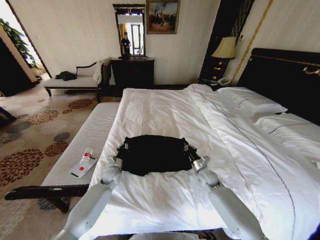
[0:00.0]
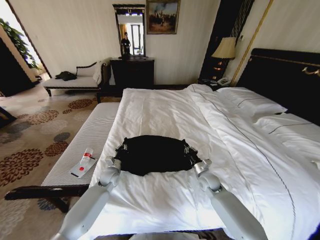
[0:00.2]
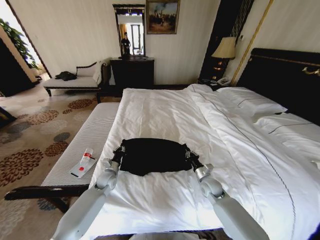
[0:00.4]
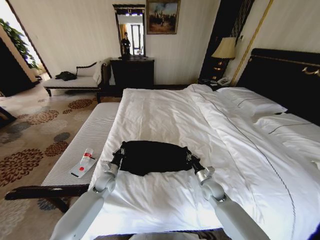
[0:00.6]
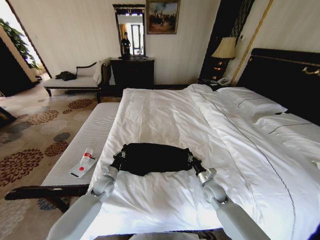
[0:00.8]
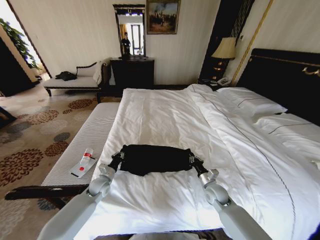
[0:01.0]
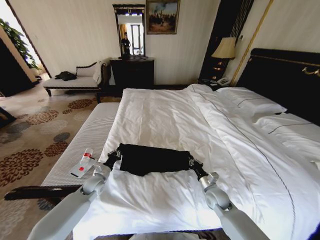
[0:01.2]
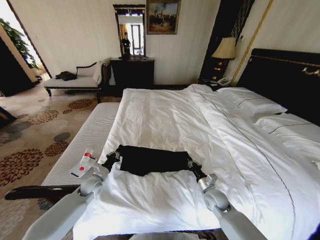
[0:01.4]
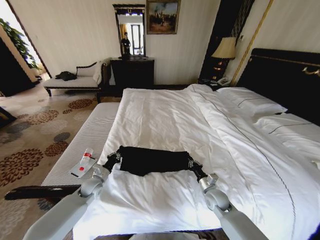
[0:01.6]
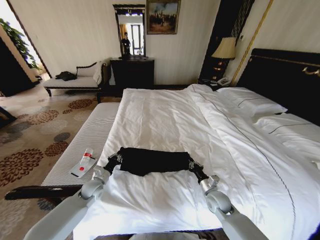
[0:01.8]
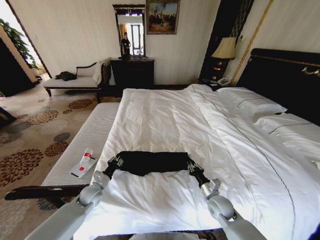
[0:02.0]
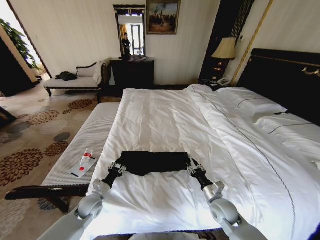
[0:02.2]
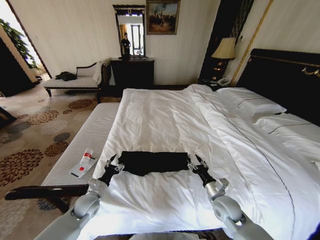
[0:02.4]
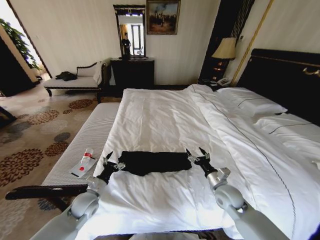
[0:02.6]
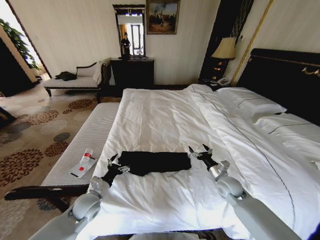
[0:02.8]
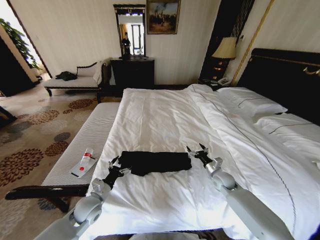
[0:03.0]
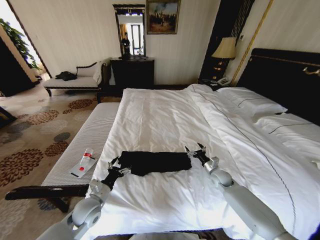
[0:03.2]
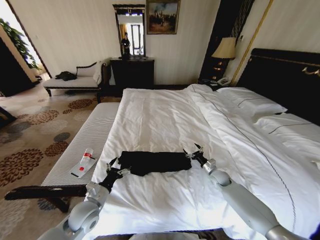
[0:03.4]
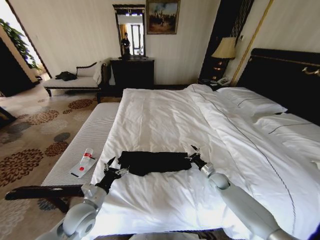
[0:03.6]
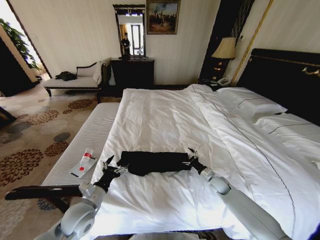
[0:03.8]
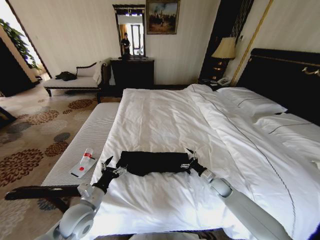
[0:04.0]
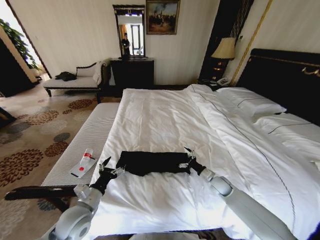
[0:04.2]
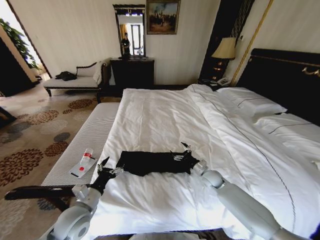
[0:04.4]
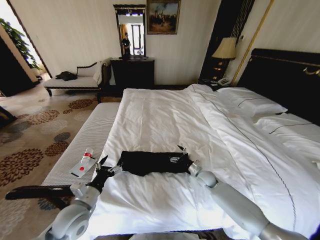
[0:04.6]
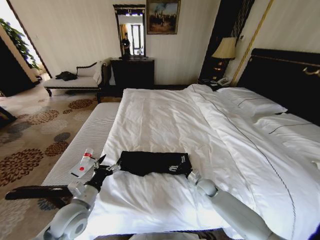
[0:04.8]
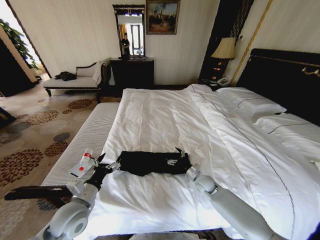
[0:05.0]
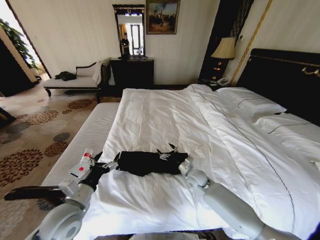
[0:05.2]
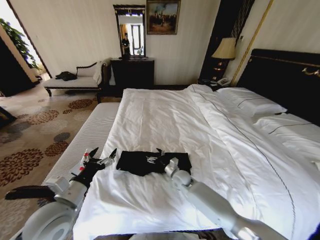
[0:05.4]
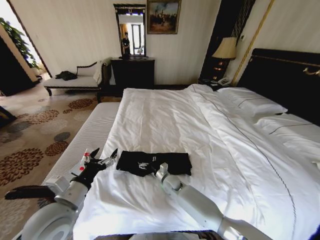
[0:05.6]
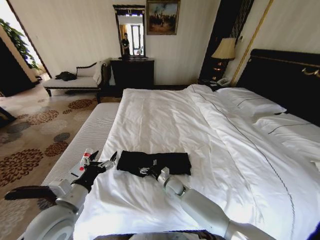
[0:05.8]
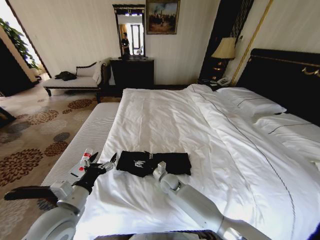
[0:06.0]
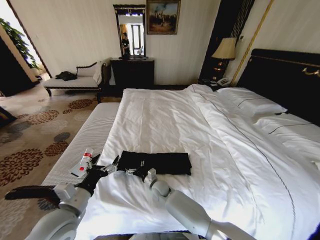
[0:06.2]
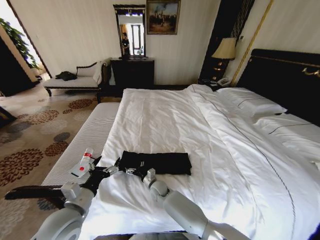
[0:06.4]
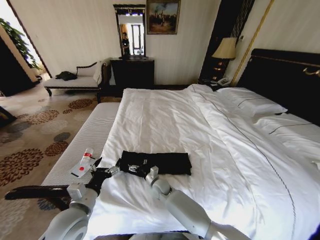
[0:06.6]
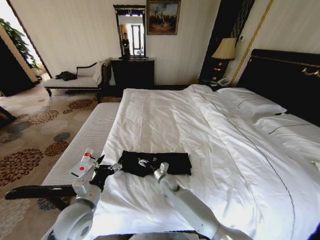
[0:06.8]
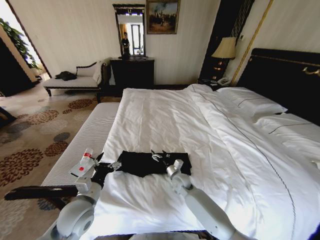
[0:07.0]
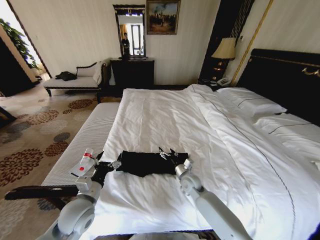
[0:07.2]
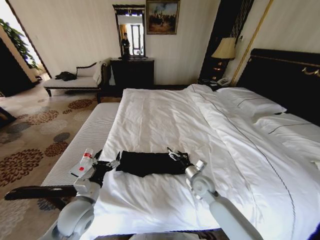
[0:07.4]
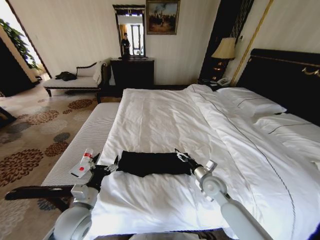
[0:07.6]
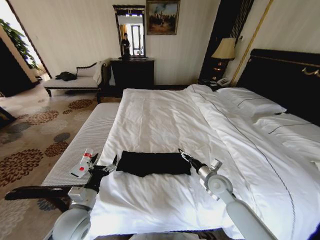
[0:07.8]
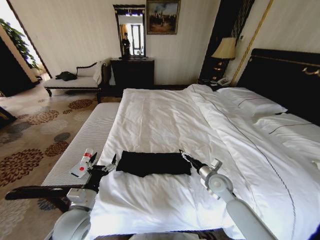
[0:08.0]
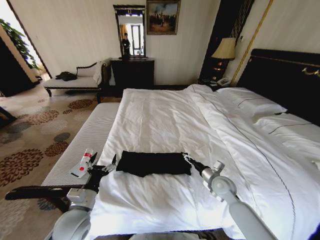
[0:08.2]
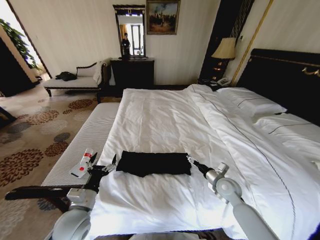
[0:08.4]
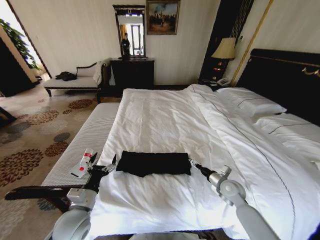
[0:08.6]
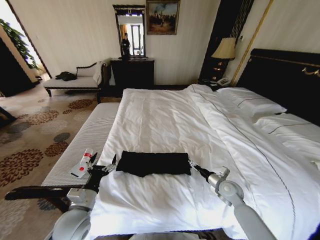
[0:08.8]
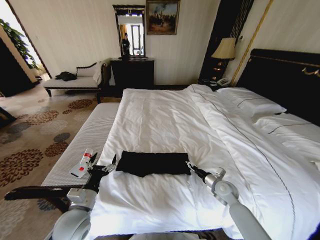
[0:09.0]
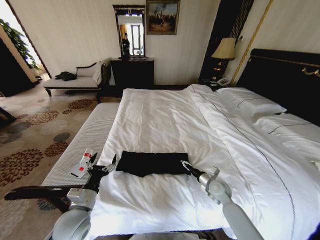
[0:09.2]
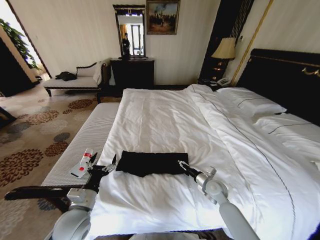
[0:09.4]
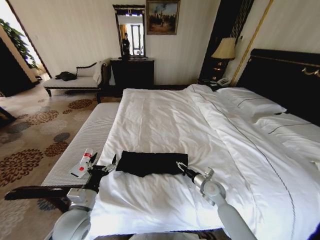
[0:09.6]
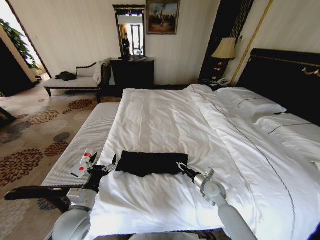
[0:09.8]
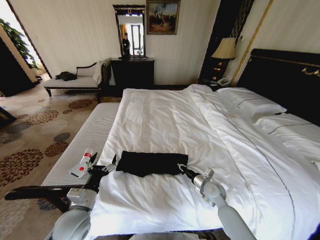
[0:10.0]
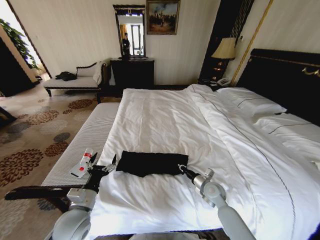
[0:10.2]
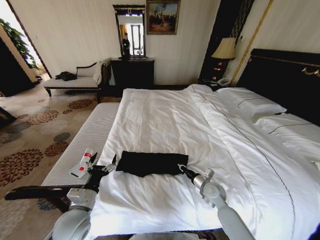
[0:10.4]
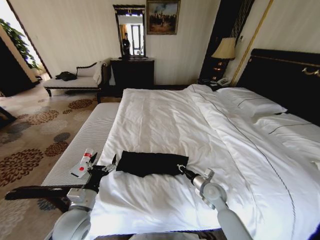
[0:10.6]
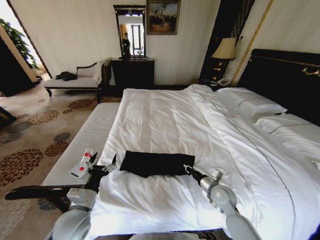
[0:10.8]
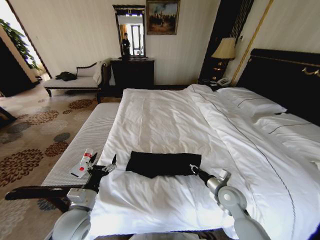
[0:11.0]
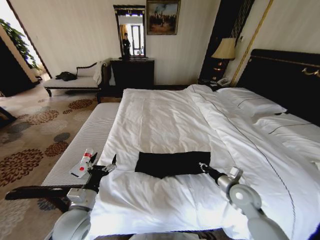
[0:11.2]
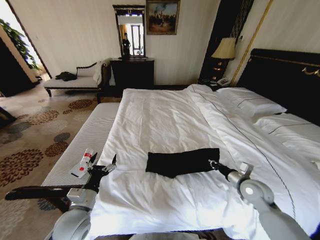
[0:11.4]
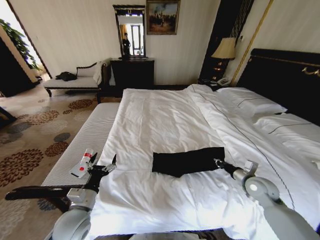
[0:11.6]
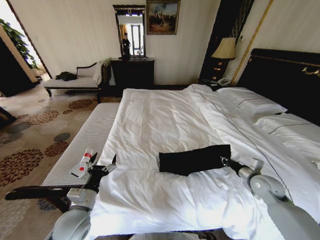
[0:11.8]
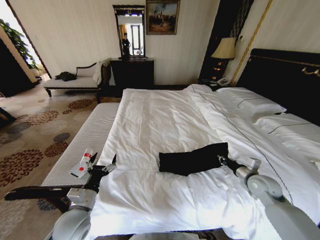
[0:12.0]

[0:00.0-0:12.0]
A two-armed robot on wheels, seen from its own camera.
Task of the whole recording: Fold the clothes on the bed.
0:00.0 to 0:01.6: The left gripper goes about 10 cm to the left and backward. Meanwhile the right gripper travels backward by roughly 10 cm.
0:01.6 to 0:03.0: The left gripper goes about 10 cm backward, and opens up. The right gripper heads forward and to the right, covering roughly 10 cm, and opens its fingers.
0:03.0 to 0:04.4: The right gripper moves approximately 5 cm, while the left gripper shifts roughly 5 cm upward.
0:04.4 to 0:06.0: The right gripper goes approximately 25 cm to the left. The left gripper goes some 10 cm upward.
0:06.0 to 0:07.6: The right gripper moves to the right and upward, some 20 cm. The left gripper shifts some 5 cm downward.
0:07.6 to 0:09.0: The right gripper travels to the right and downward by roughly 10 cm.
0:09.0 to 0:10.4: The right gripper goes about 5 cm to the left, and closes up.
0:10.4 to 0:12.0: The right gripper is displaced to the right and upward by approximately 20 cm.

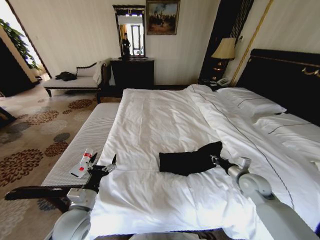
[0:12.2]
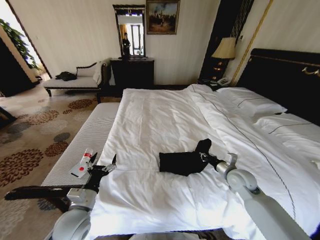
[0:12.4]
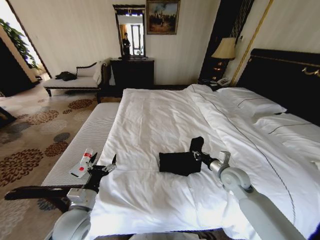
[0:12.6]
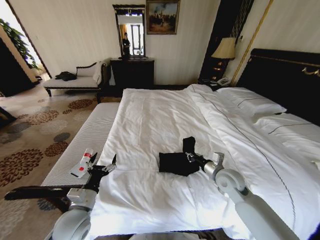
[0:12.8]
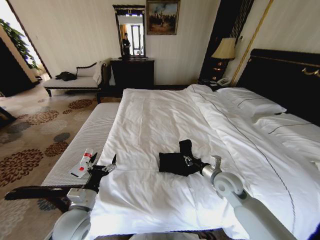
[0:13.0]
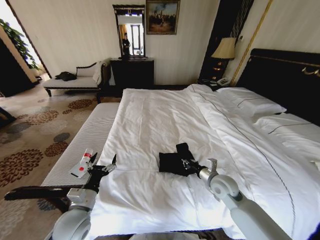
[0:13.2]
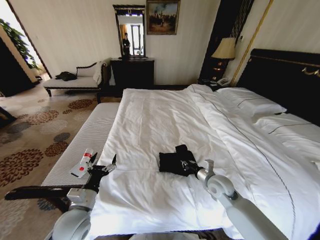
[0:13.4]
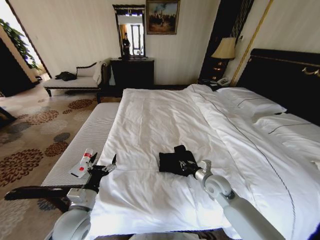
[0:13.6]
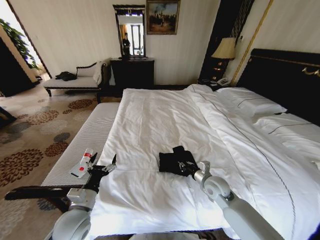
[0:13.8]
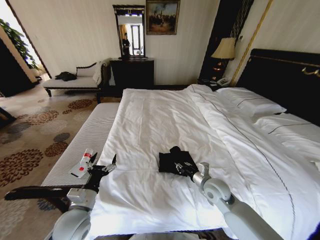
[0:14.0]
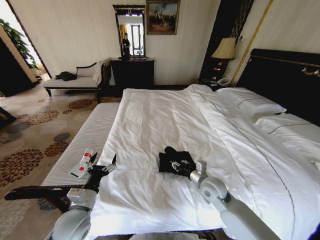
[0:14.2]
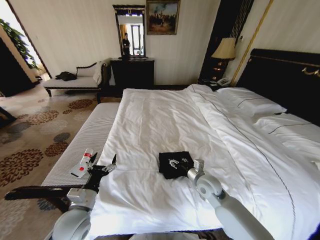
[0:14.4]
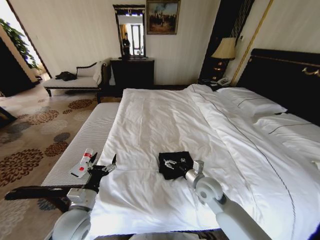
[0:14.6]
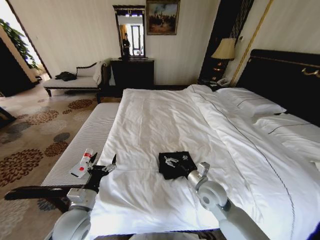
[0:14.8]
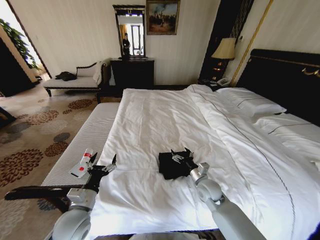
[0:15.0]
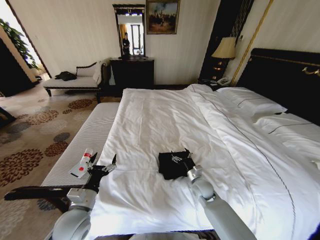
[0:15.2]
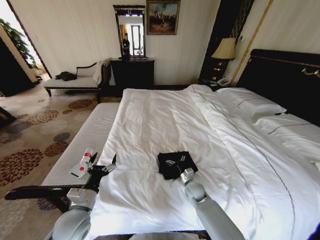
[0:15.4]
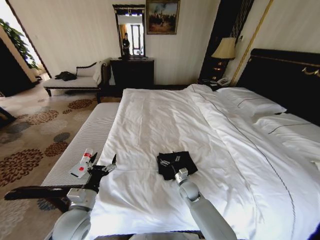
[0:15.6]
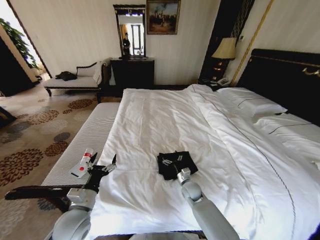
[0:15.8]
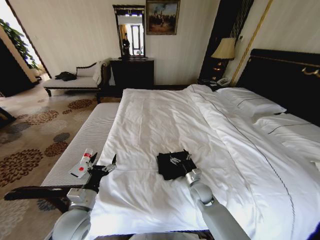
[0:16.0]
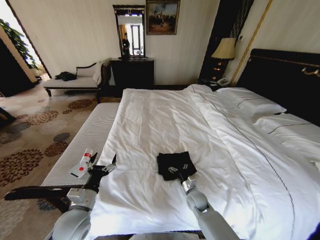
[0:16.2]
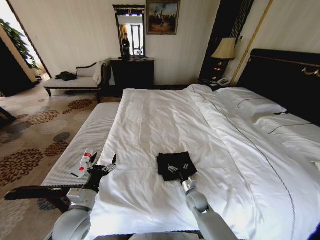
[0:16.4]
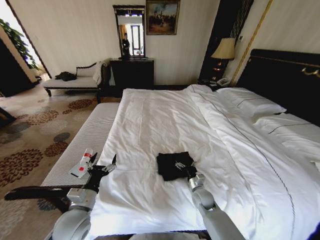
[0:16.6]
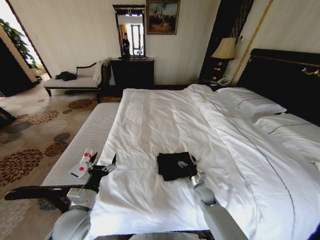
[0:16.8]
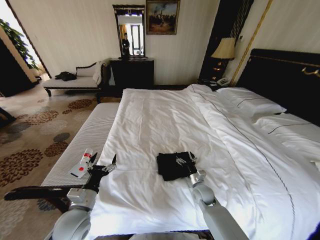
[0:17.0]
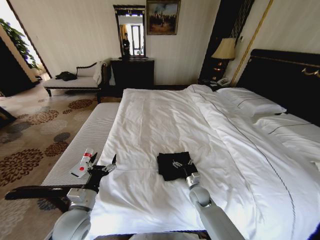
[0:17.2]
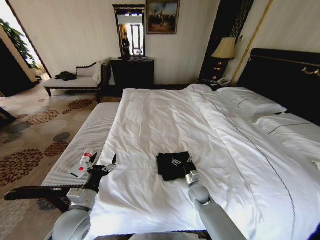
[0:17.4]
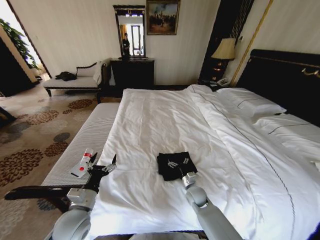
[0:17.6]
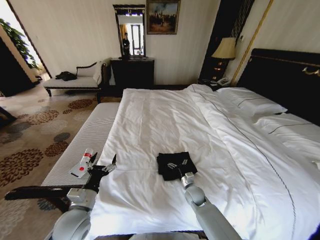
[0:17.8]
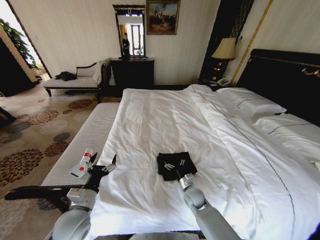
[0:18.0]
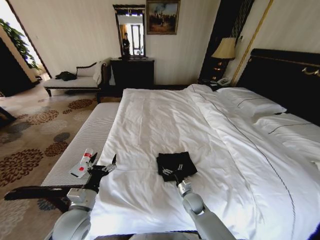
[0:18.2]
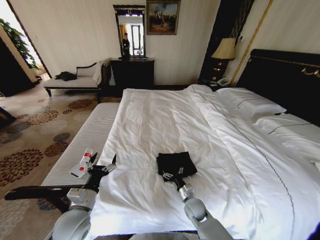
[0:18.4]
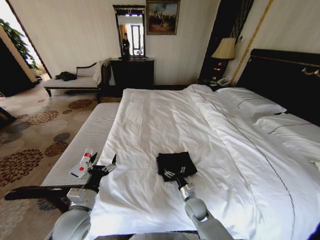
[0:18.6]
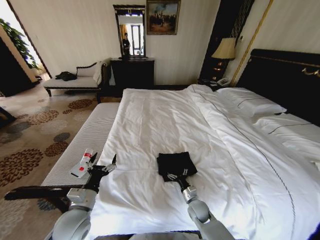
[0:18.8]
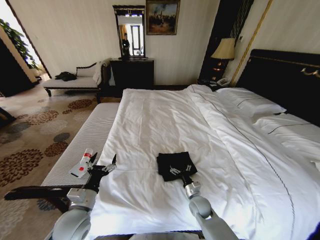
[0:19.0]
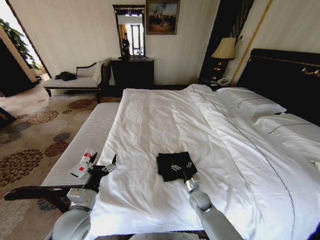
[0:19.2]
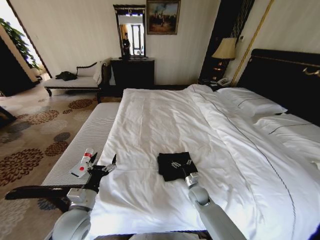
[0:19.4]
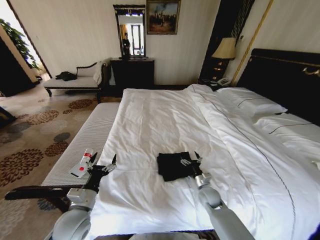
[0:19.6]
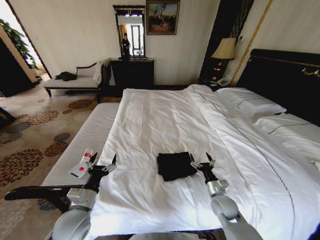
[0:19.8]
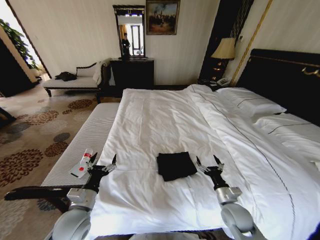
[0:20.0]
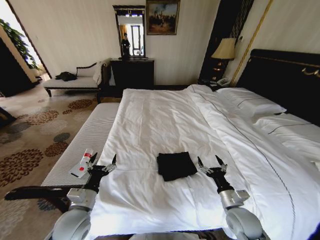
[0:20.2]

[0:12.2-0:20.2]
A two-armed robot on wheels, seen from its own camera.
Task of the whole recording: Fold the clothes on the bed.
0:12.2 to 0:13.8: The right gripper shifts about 15 cm to the left.
0:13.8 to 0:15.4: The right gripper heads downward and to the left, covering approximately 15 cm, and opens up.
0:15.4 to 0:17.0: There are only small adjustments of the grippers.
0:17.0 to 0:18.6: The right gripper goes approximately 10 cm backward and to the left.
0:18.6 to 0:20.2: The right gripper goes about 20 cm to the right, upward and backward.

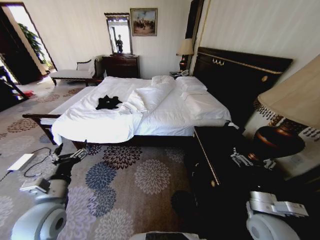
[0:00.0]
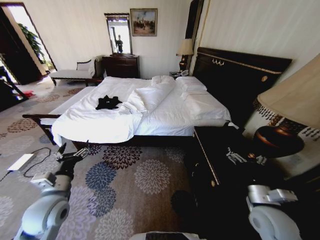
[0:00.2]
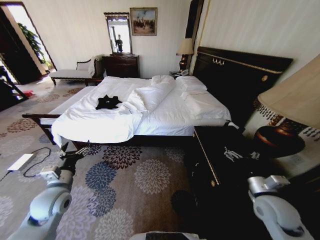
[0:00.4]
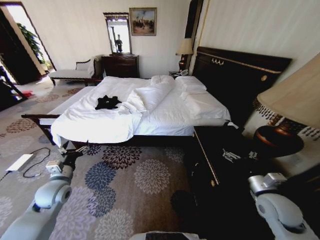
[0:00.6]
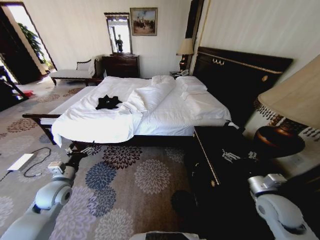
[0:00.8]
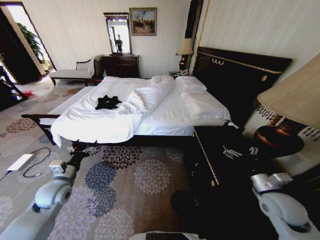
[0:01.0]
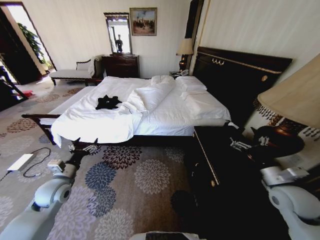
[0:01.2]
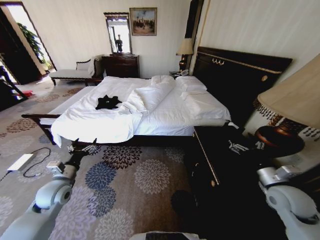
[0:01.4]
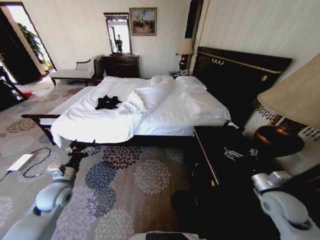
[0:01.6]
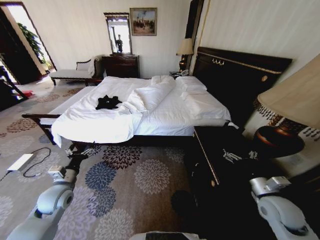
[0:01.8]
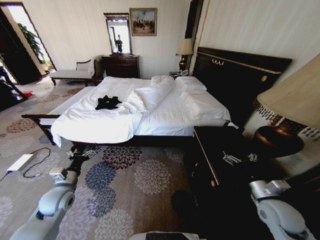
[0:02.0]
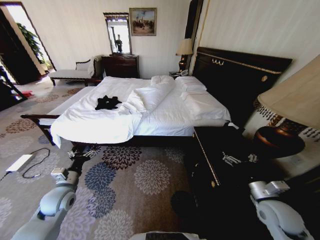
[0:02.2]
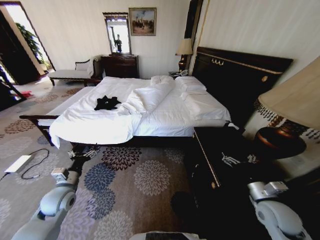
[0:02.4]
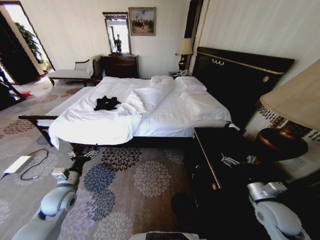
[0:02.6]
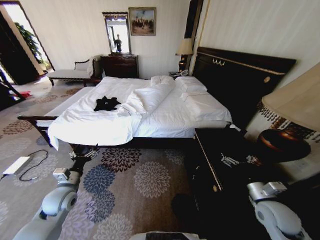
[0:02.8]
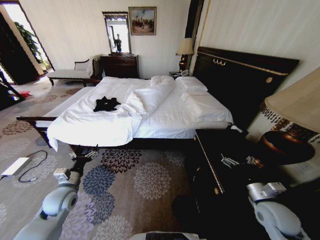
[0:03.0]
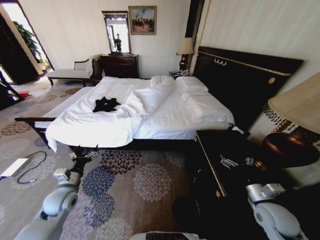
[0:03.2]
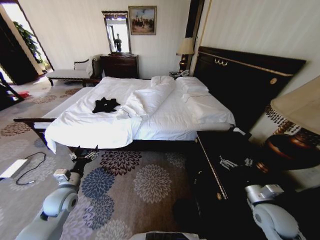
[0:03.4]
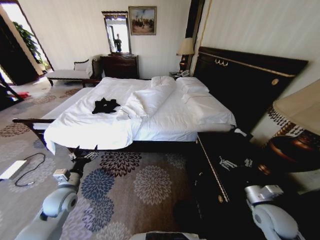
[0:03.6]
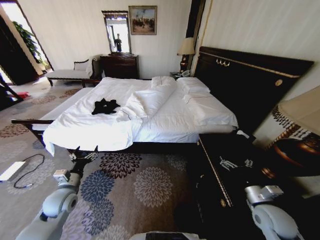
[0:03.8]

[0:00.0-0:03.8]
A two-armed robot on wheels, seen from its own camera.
Task of the whole recording: Fold the clothes on the bed.
0:01.2 to 0:02.6: The right gripper moves downward, roughly 5 cm.
